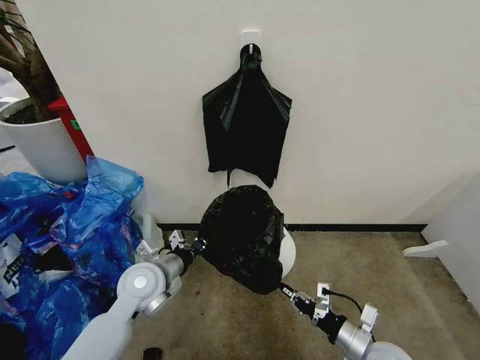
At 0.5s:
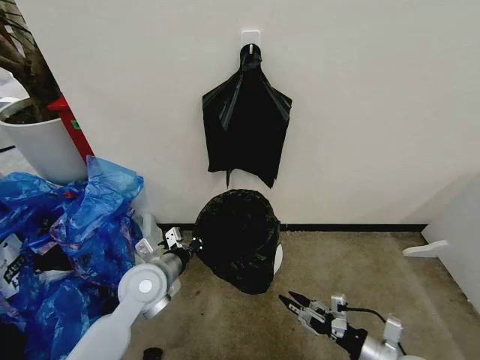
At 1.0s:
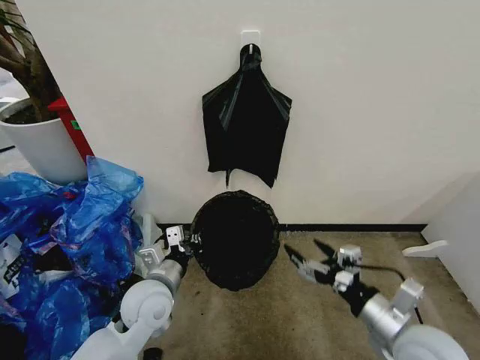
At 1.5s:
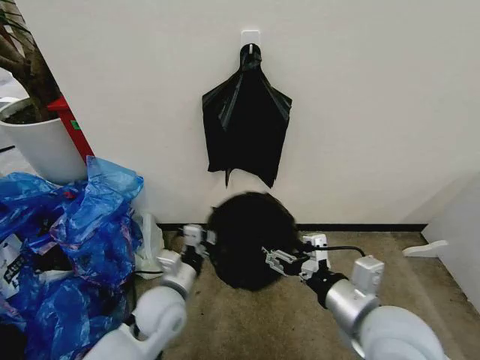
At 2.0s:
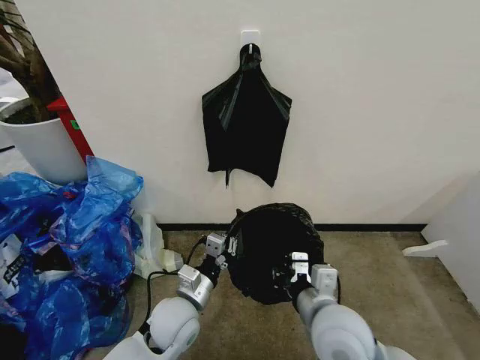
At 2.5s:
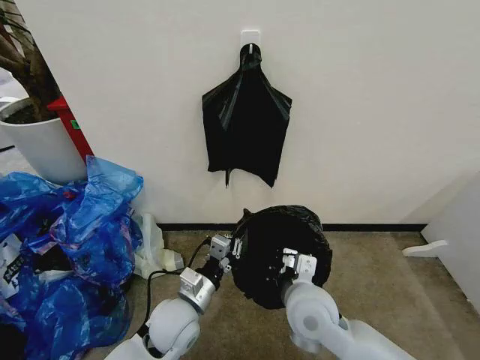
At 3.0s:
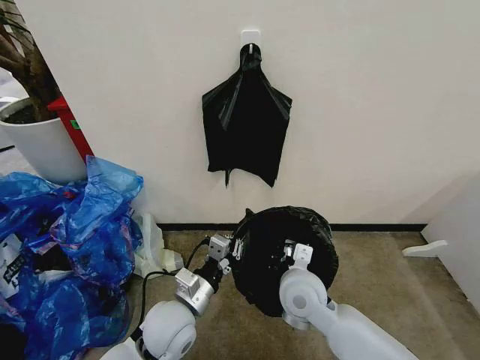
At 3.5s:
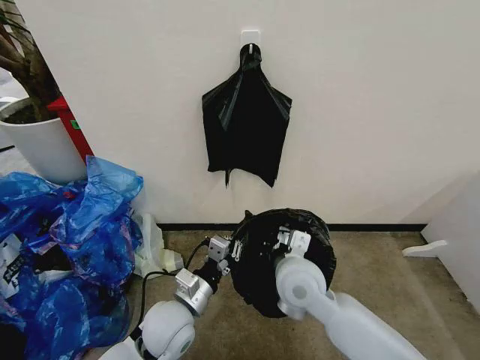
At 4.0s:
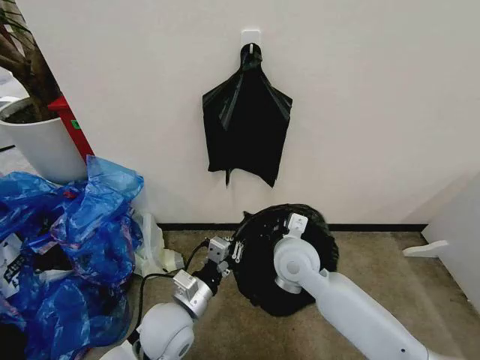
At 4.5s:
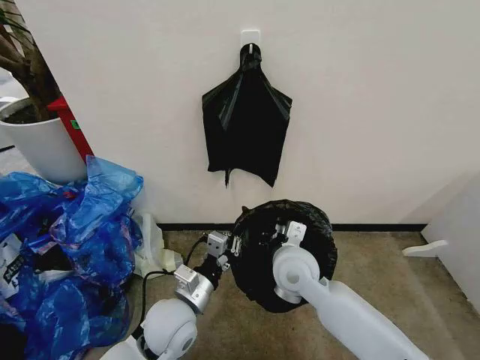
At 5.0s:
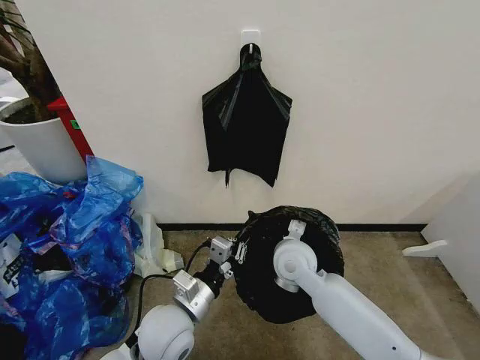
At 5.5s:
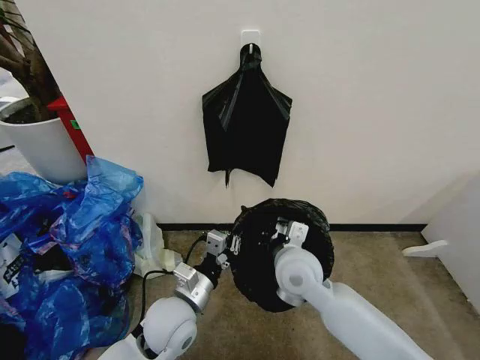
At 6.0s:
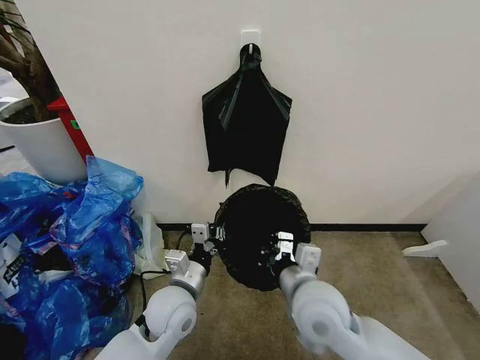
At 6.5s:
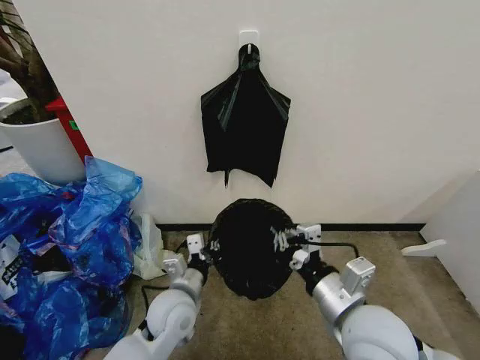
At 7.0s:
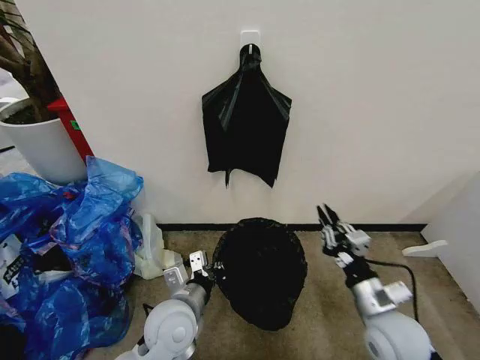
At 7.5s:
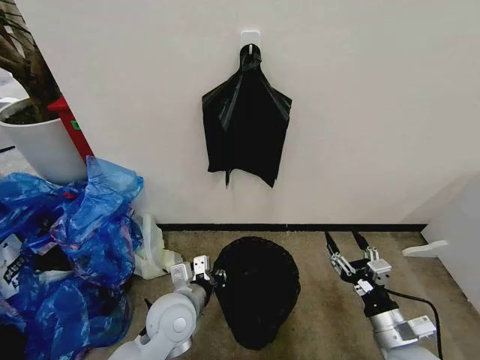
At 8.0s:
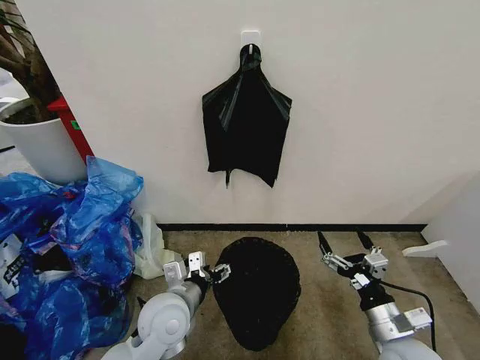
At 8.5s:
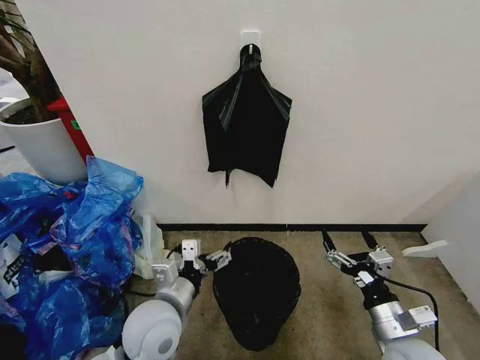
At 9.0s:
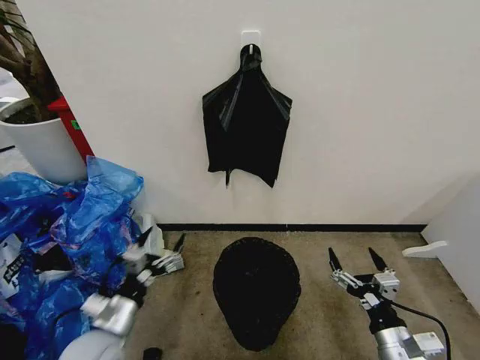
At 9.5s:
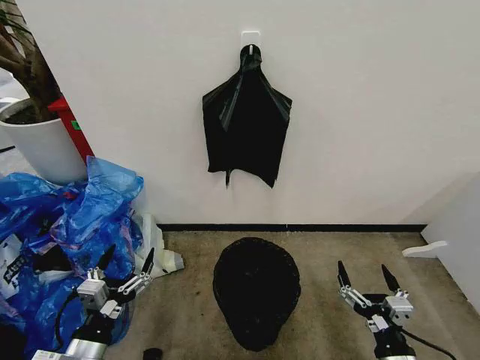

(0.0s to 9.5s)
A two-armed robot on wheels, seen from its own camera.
Task of the whole recording: Place the garbage bag over the trash bin.
0.0s - 2.0s: The right gripper moves upward and to the left, approximately 20 cm, and opens, then closes again. The left gripper goes about 10 cm to the right and backward.
2.0s - 4.0s: The right gripper is displaced forward by about 15 cm.
4.0s - 5.5s: There are only small adjustments of the grippers.
5.5s - 7.5s: The right gripper is displaced to the right, backward and downward by approximately 25 cm, and opens its fingers.
7.5s - 9.5s: The right gripper travels backward by about 10 cm, and opens up, while the left gripper shifts about 20 cm to the left and backward, and opens up.

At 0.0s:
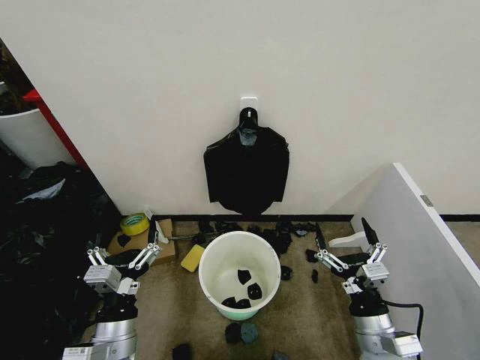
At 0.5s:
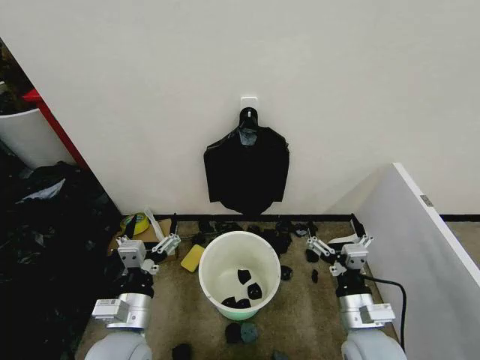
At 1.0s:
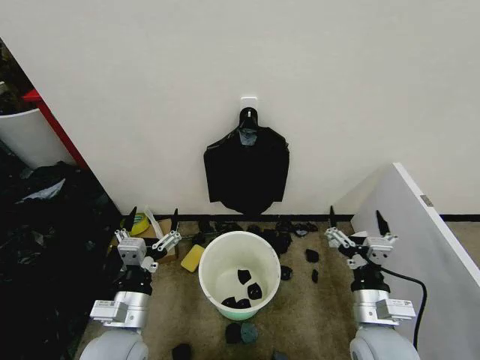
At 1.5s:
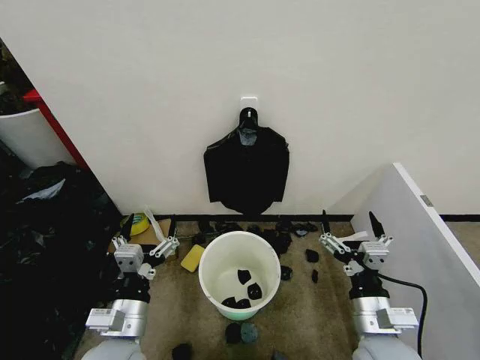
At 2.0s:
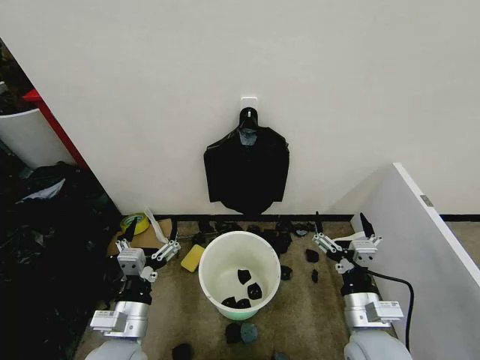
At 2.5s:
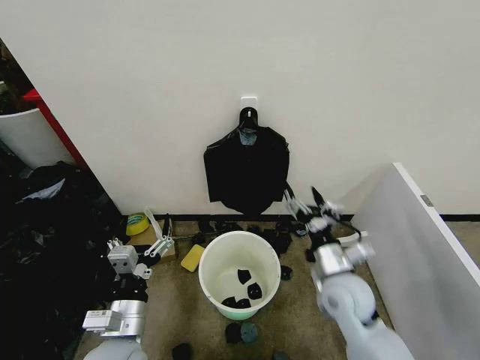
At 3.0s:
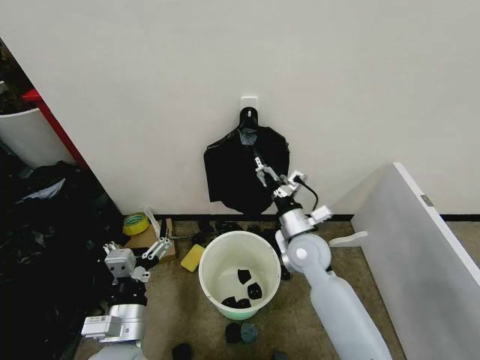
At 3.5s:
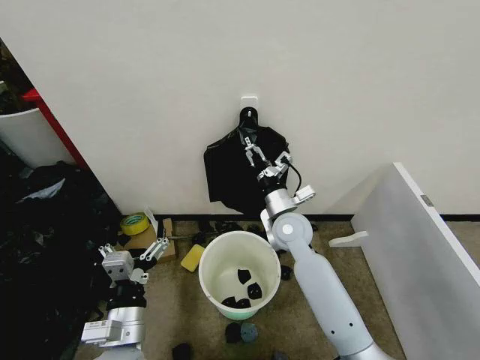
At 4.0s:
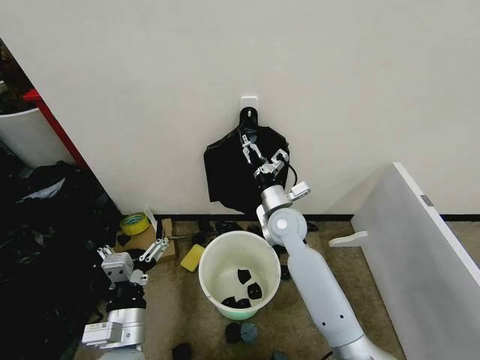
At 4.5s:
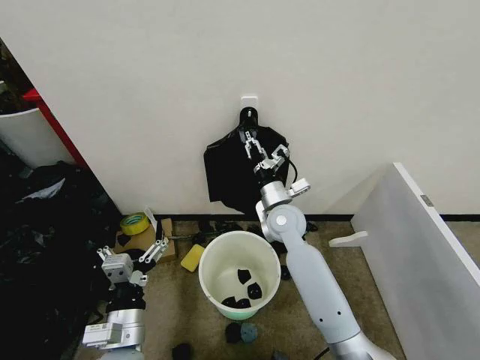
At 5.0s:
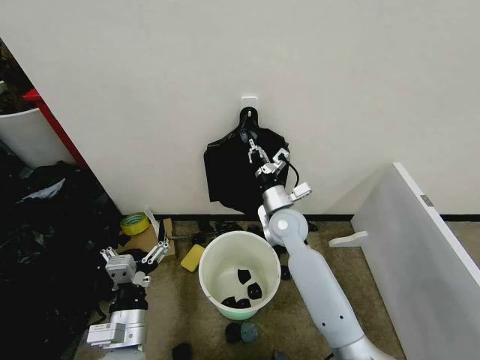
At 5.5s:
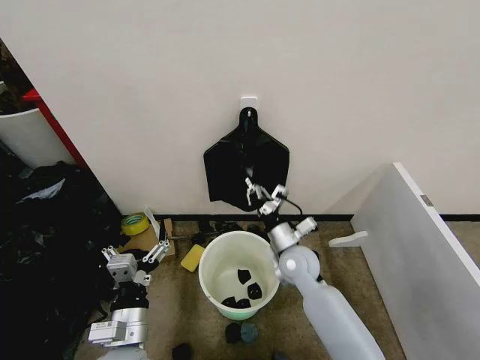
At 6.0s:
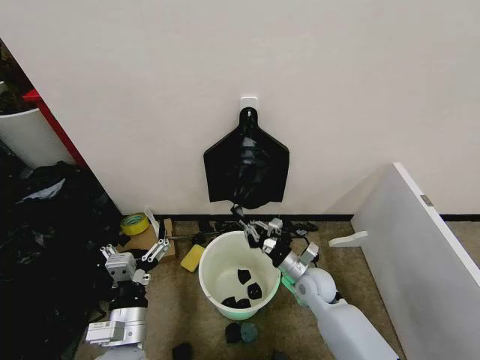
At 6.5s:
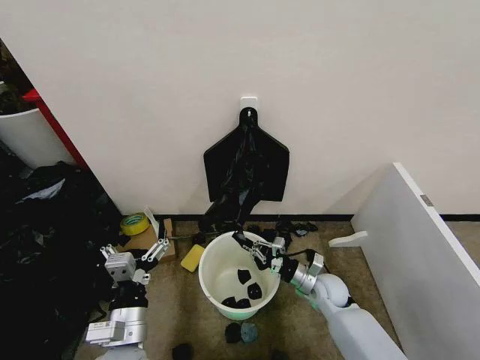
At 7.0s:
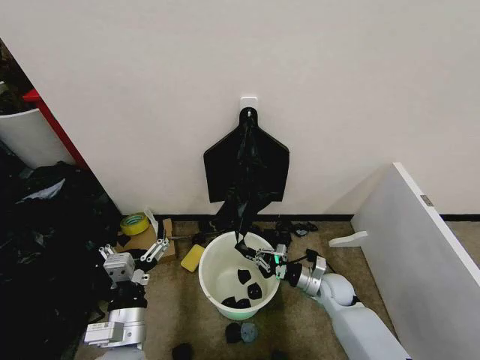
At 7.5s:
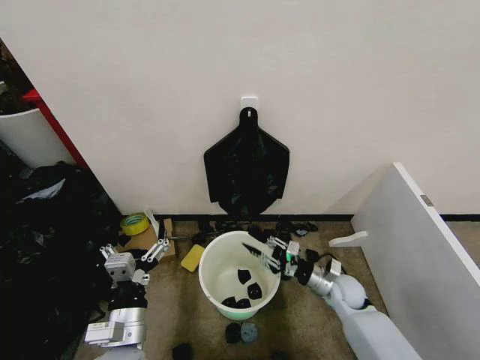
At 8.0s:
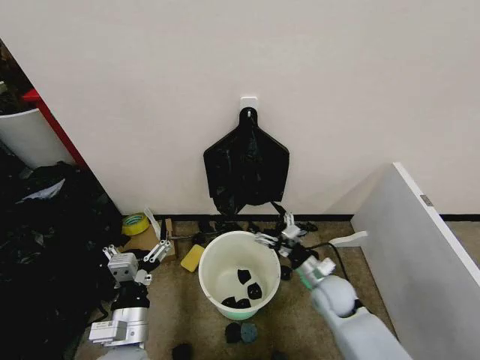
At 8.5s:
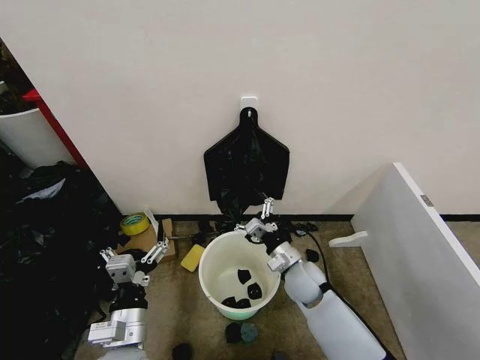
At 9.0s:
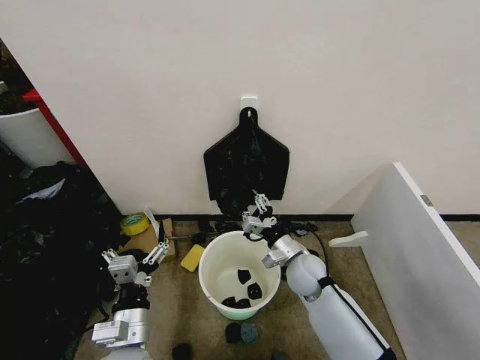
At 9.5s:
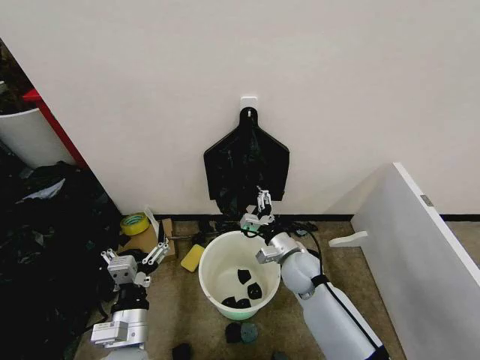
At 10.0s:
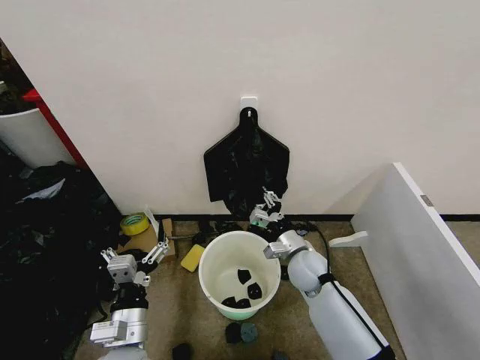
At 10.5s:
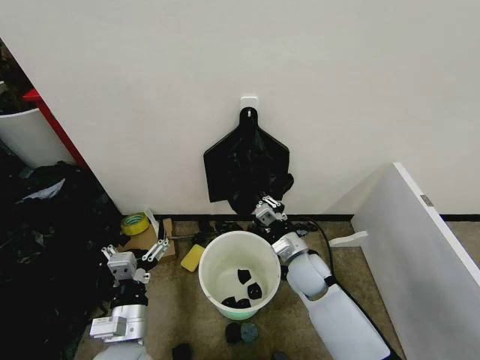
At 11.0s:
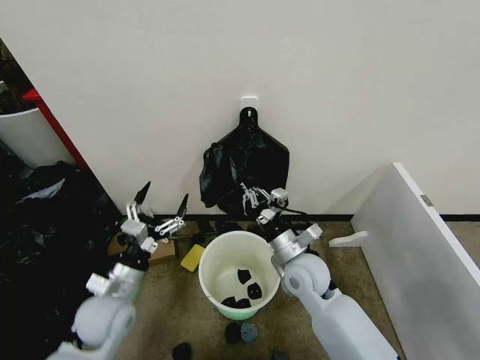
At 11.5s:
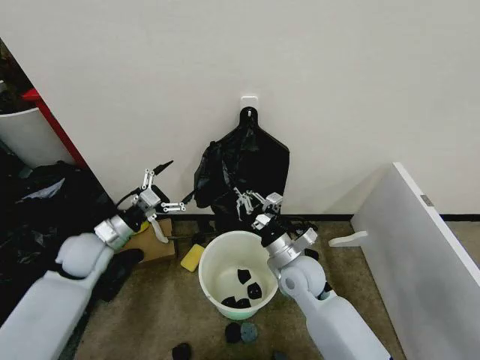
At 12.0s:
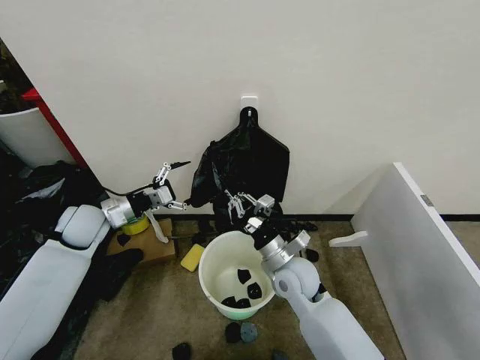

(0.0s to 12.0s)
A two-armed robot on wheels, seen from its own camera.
Task of the whole recording: Place the garbage bag over the trash bin.
2.0s - 4.0s: The right gripper goes some 30 cm forward and to the left.
4.0s - 6.0s: The right gripper heads downward, backward and to the right, covering some 20 cm, and closes up.
6.0s - 8.0s: The right gripper travels to the right and back again, approximately 10 cm each way, and opens.
8.0s - 10.0s: The right gripper shifts some 5 cm to the left, and closes.
10.0s - 12.0s: The left gripper is displaced forward and to the left by roughly 30 cm; the right gripper changes place by approximately 5 cm.

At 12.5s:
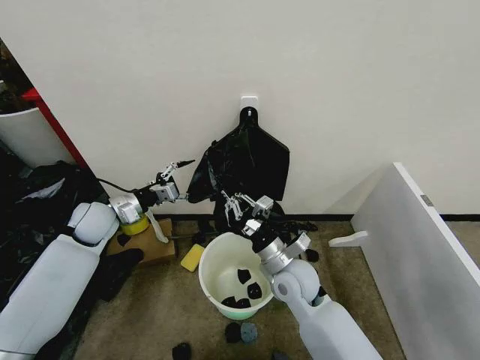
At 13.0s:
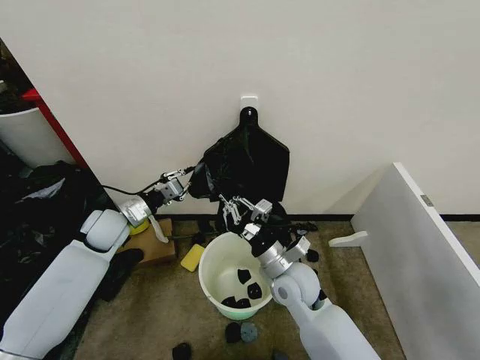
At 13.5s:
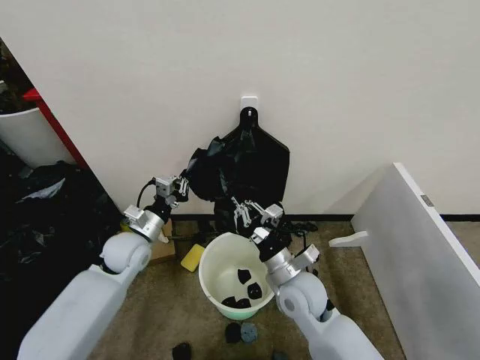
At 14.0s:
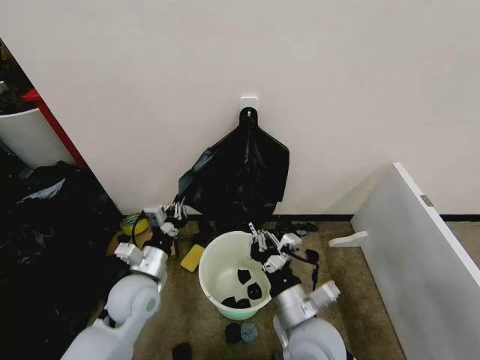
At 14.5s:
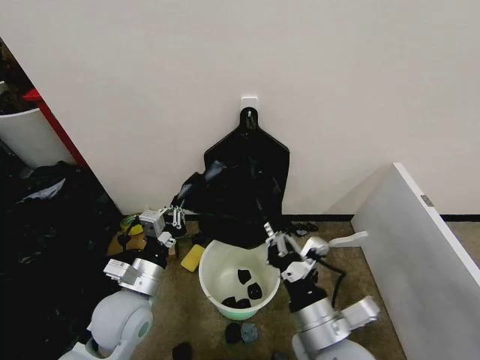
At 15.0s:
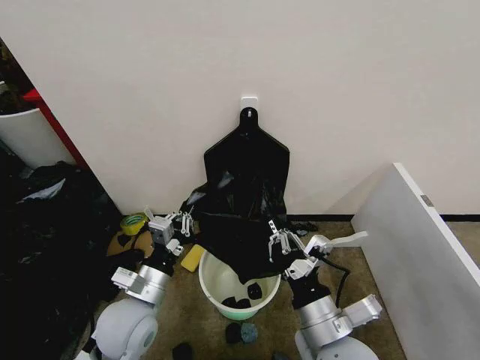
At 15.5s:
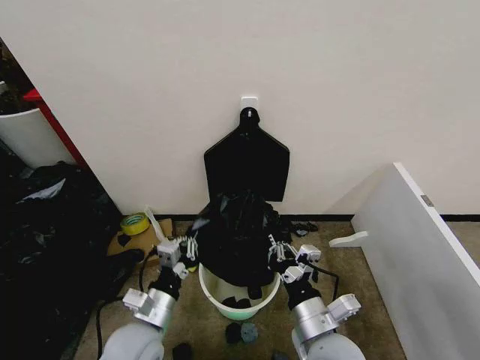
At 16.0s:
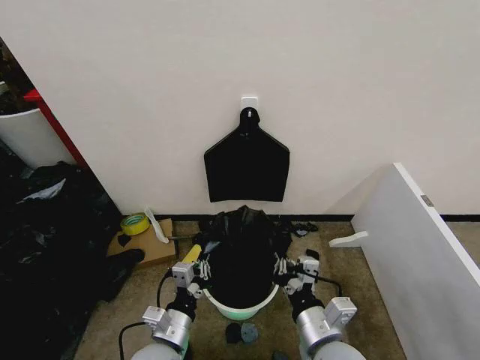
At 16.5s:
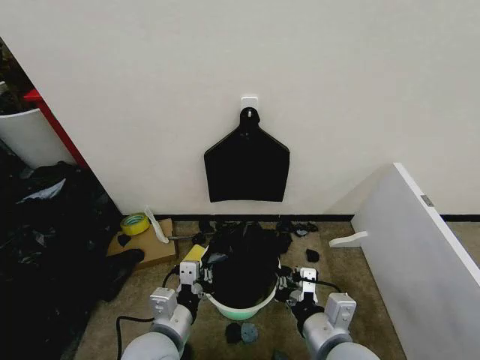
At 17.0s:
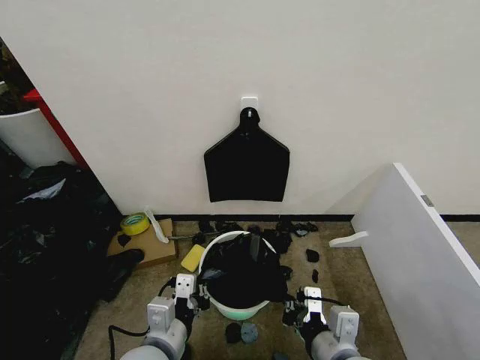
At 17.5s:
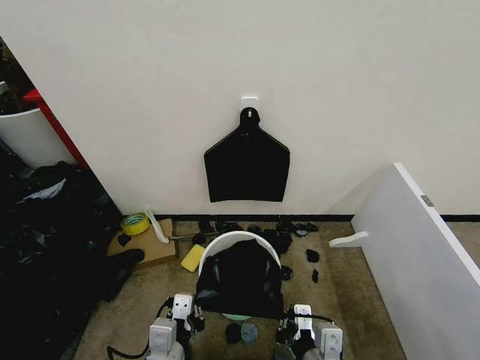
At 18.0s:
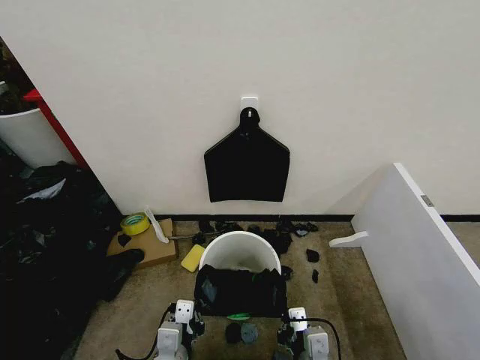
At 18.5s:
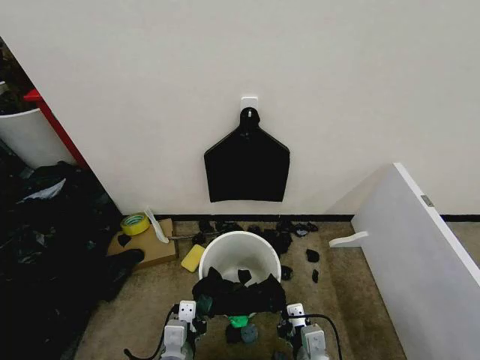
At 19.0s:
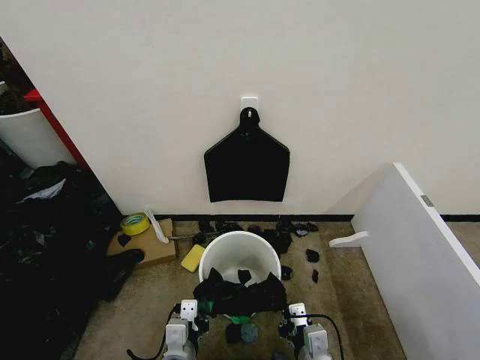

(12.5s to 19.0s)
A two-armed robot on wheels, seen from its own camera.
Task of the whole recording: Place the garbage bag over the trash bin.
12.5s - 14.5s: The right gripper is displaced backward and upward by some 20 cm, while the left gripper is displaced backward and to the right by some 25 cm, and closes up.
14.5s - 17.0s: The left gripper shifts approximately 10 cm backward and to the right.
17.0s - 19.0s: Both grippers travel together downward, approximately 10 cm.
